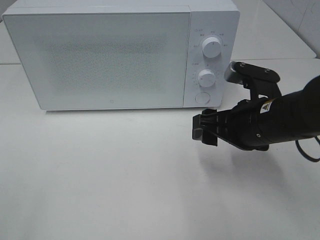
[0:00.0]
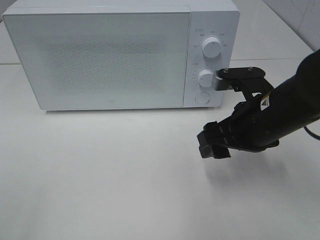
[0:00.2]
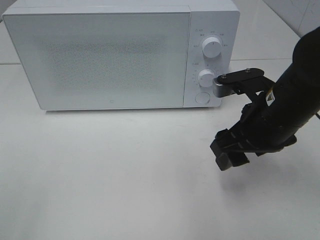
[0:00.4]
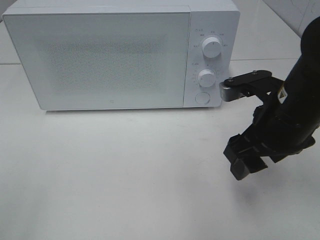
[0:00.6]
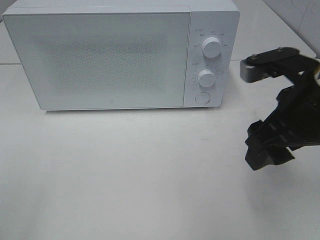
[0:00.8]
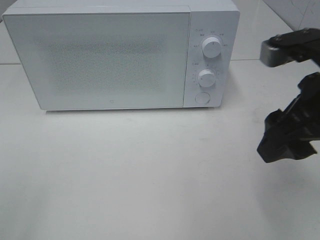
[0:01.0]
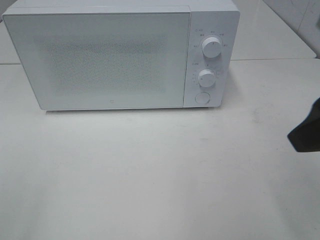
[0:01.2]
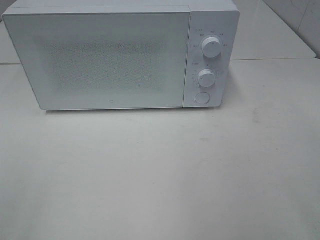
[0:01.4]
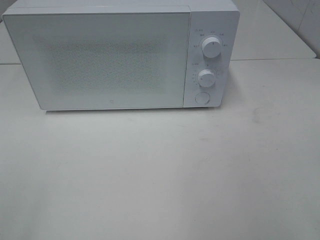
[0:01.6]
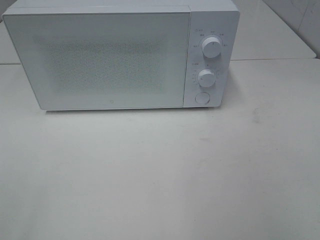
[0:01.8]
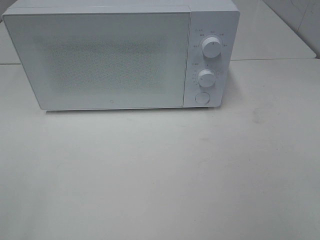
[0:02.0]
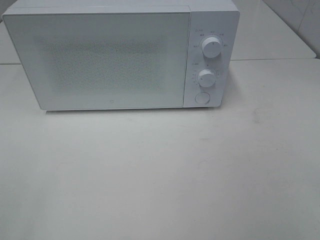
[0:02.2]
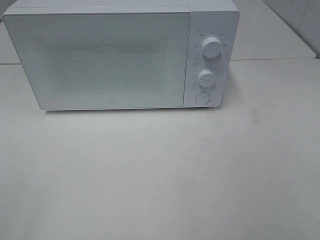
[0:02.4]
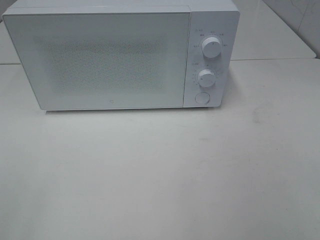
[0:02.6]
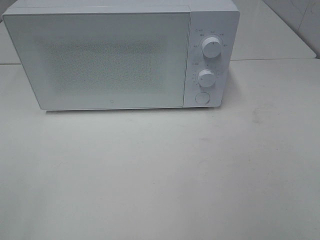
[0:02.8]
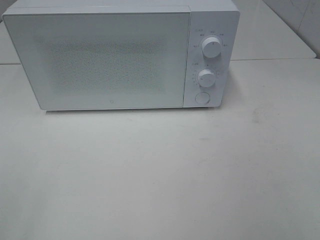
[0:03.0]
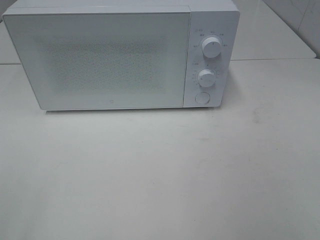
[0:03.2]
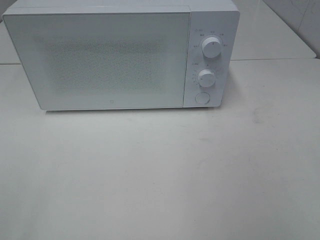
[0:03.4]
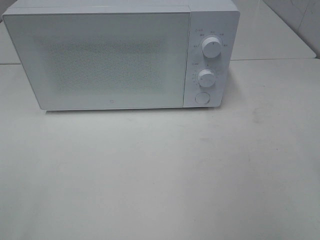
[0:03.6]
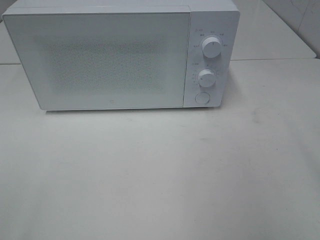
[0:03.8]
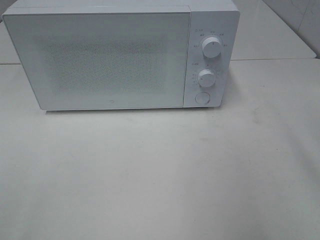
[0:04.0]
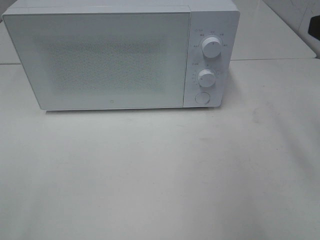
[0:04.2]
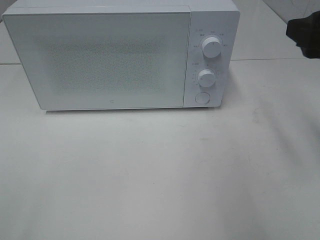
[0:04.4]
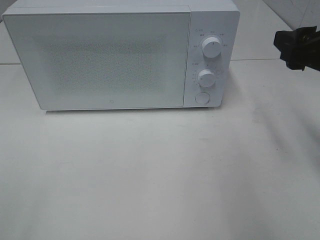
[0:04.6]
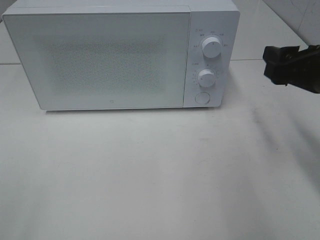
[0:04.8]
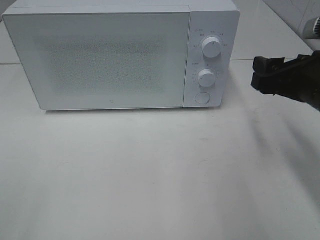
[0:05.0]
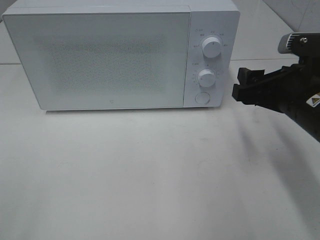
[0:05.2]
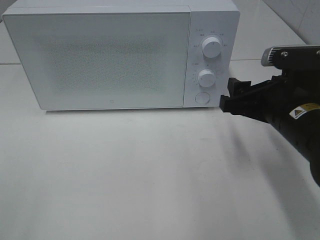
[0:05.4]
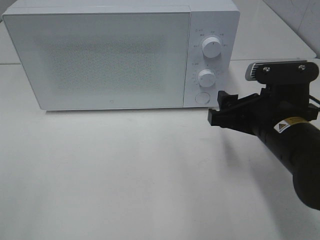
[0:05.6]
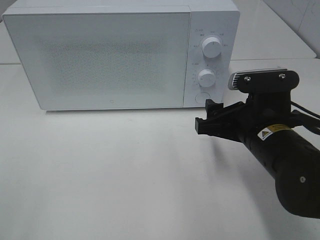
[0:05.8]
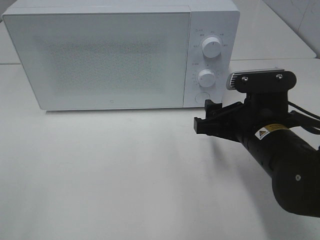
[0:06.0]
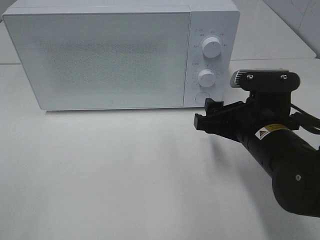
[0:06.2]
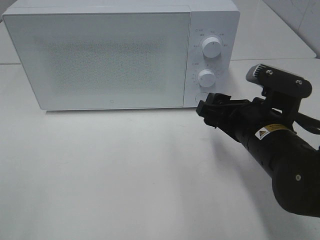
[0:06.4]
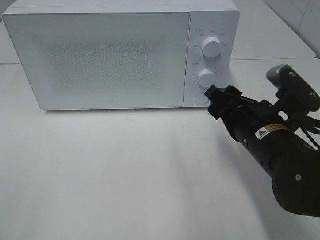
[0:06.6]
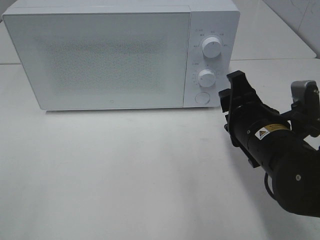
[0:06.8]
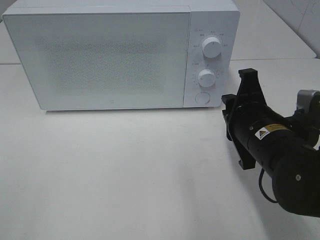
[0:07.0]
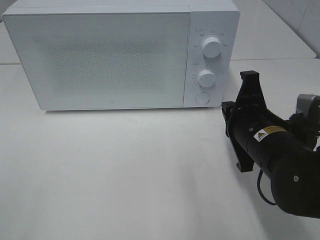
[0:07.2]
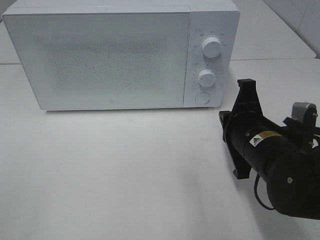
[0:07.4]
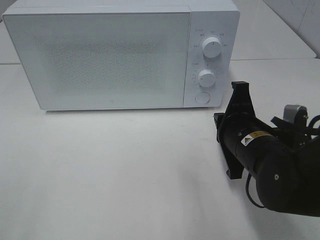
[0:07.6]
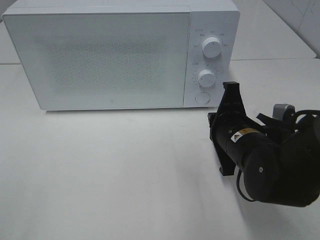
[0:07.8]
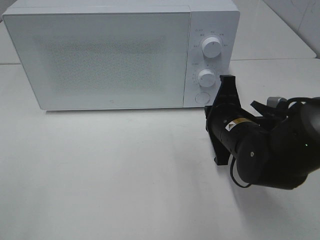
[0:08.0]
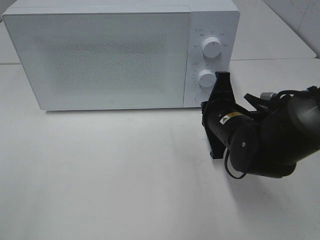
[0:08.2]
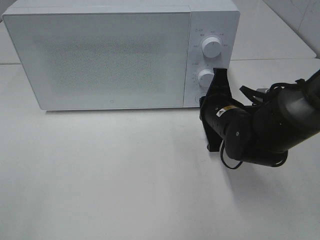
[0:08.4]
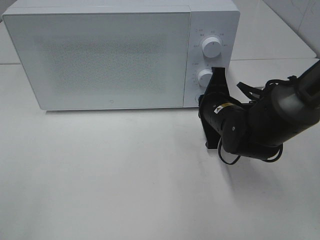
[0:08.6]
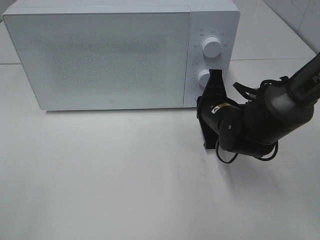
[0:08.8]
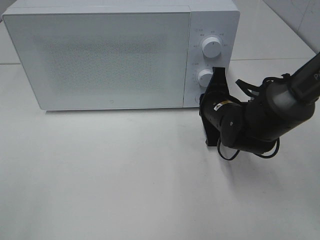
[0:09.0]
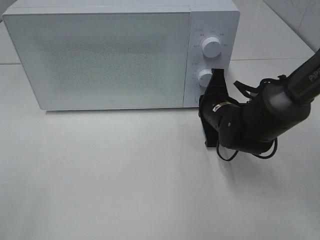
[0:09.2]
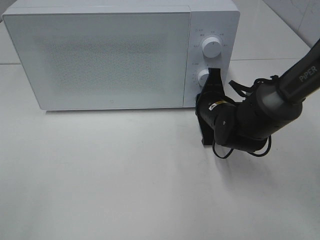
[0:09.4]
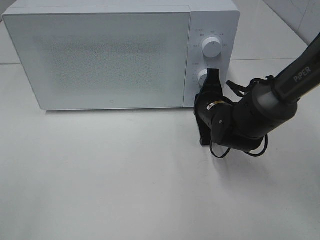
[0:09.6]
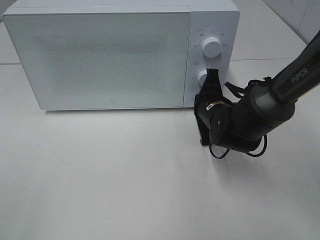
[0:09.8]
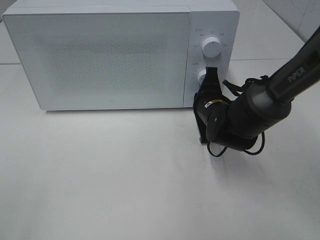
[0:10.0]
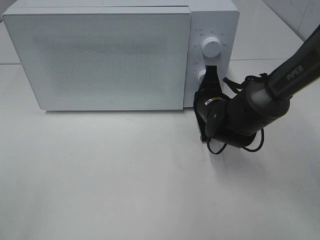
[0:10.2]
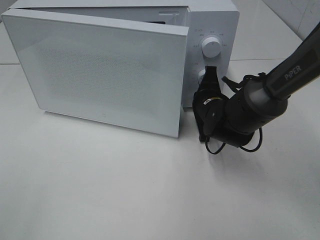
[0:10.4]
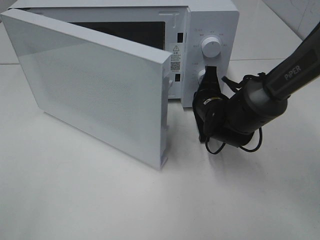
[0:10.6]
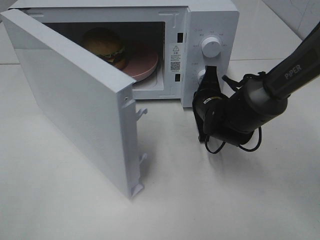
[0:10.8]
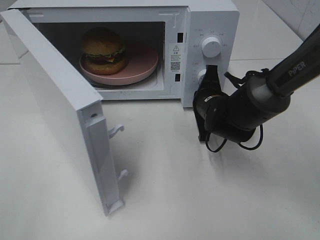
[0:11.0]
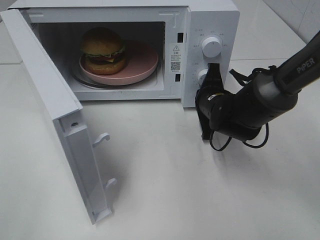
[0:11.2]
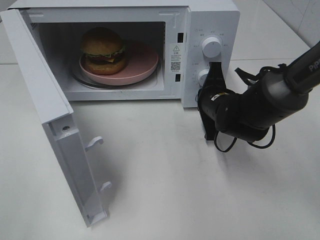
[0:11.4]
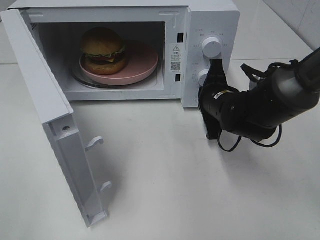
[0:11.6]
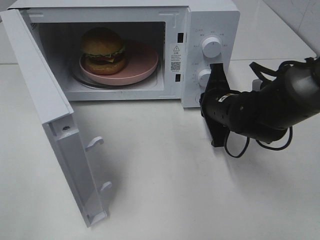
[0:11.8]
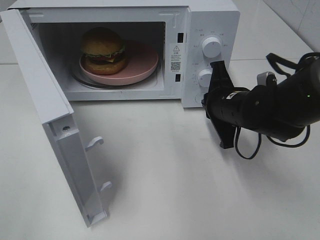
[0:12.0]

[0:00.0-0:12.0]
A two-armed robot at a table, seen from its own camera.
Task of the whole recording: Heat the burger.
Step, 0:00.0 to 0:11.8: Right hand: press the switch.
0:00.0 to 0:01.6: The right gripper is displaced backward, upward and to the right by roughly 25 cm.
0:03.0 to 0:04.4: The right gripper moves forward, about 20 cm.
0:04.4 to 0:06.0: The right gripper moves downward and to the left, some 15 cm.
0:06.0 to 0:07.6: The right gripper closes.
0:07.6 to 0:09.0: The right gripper moves forward, approximately 10 cm.
0:09.0 to 0:10.4: There are only small adjustments of the grippers.
0:10.4 to 0:12.0: The right gripper travels backward by approximately 5 cm.

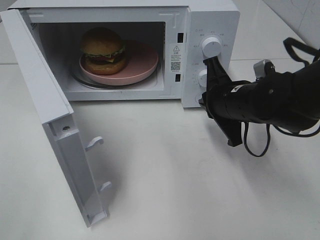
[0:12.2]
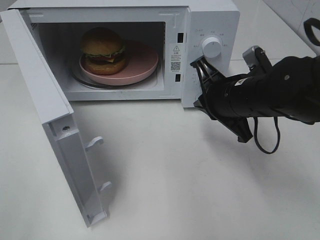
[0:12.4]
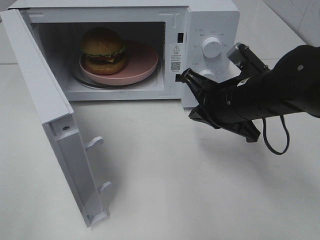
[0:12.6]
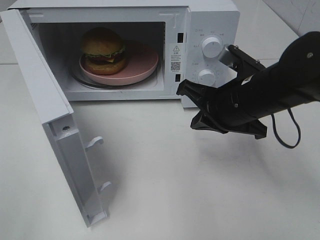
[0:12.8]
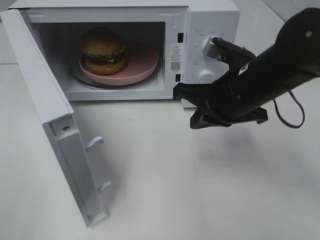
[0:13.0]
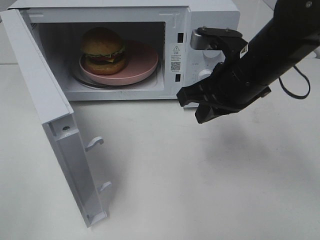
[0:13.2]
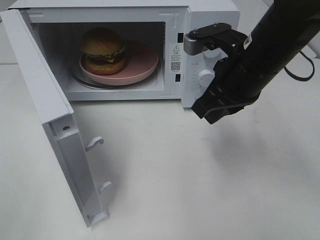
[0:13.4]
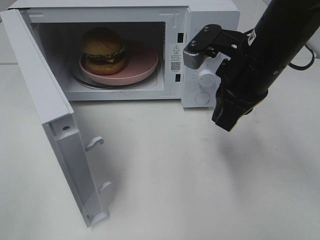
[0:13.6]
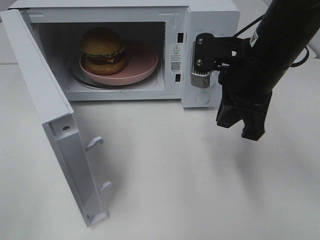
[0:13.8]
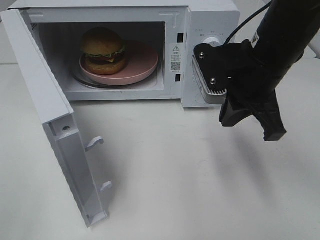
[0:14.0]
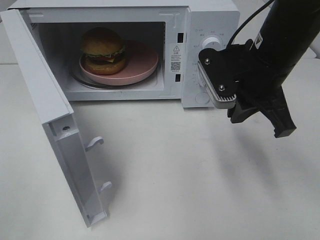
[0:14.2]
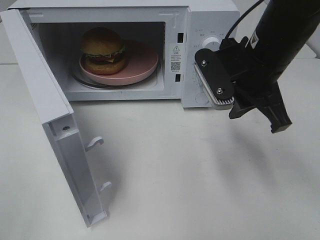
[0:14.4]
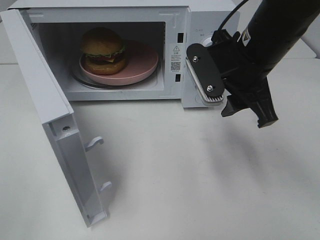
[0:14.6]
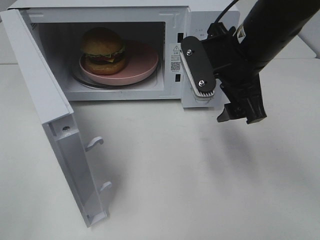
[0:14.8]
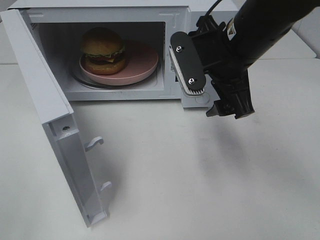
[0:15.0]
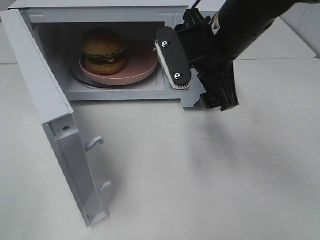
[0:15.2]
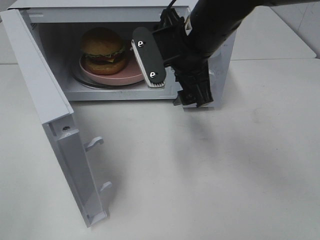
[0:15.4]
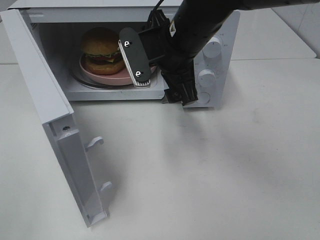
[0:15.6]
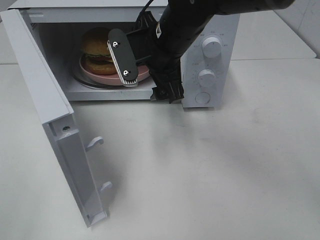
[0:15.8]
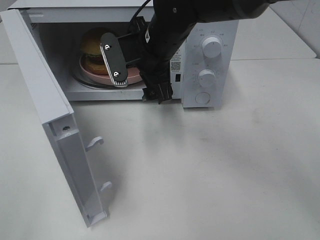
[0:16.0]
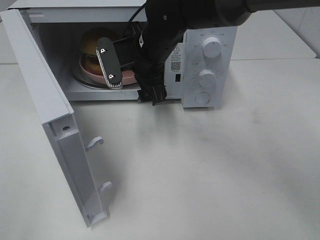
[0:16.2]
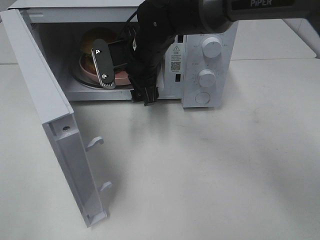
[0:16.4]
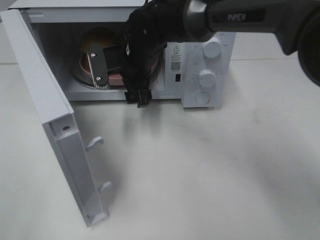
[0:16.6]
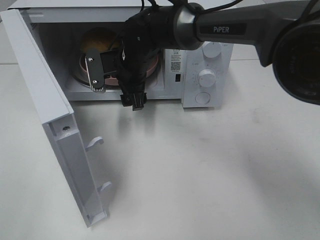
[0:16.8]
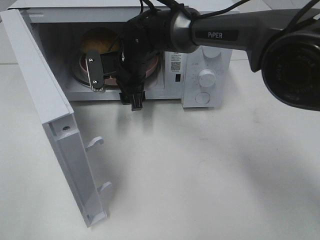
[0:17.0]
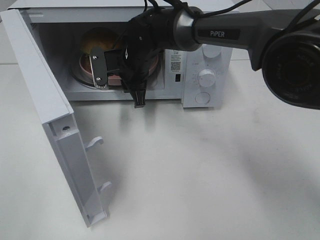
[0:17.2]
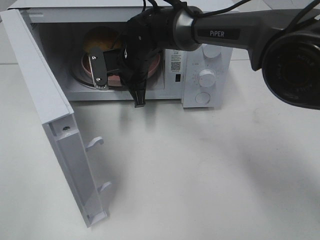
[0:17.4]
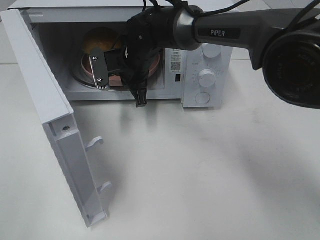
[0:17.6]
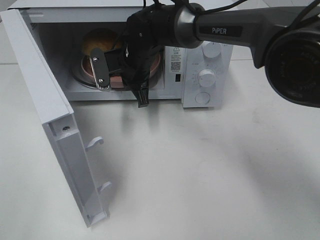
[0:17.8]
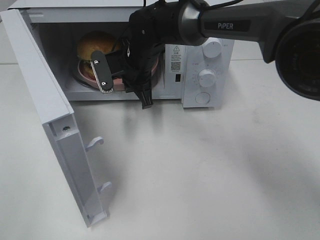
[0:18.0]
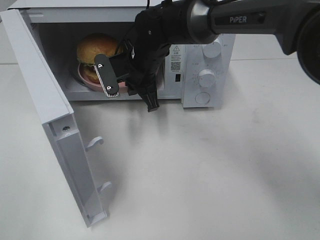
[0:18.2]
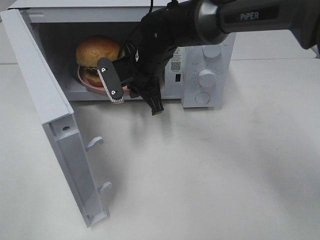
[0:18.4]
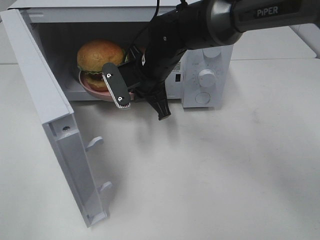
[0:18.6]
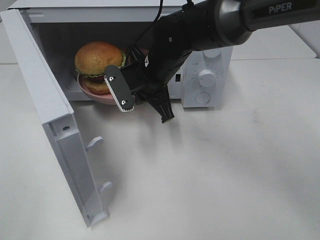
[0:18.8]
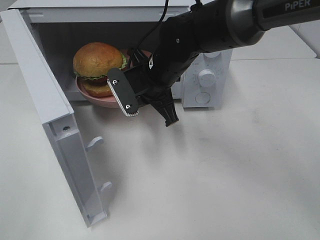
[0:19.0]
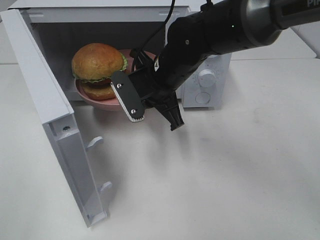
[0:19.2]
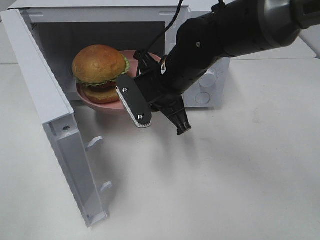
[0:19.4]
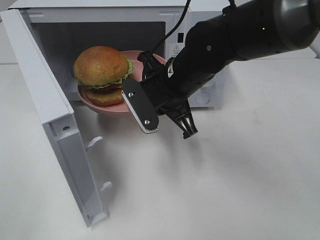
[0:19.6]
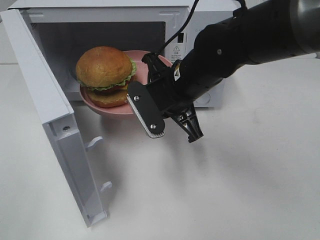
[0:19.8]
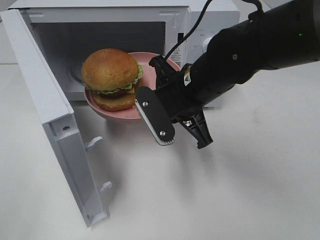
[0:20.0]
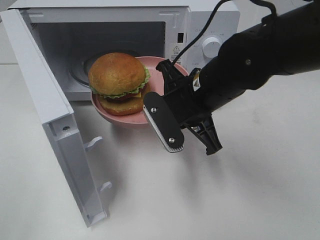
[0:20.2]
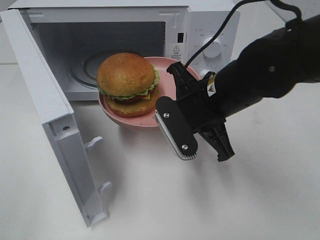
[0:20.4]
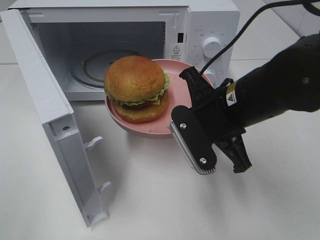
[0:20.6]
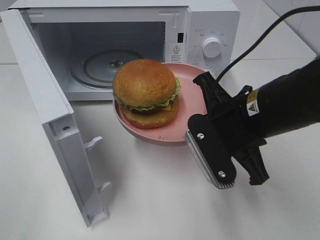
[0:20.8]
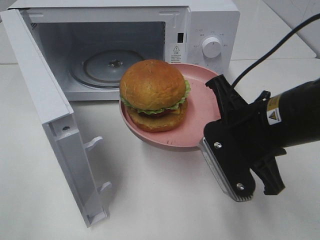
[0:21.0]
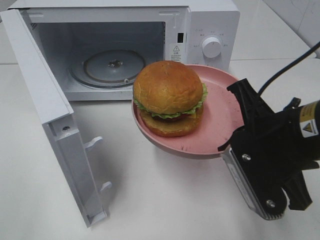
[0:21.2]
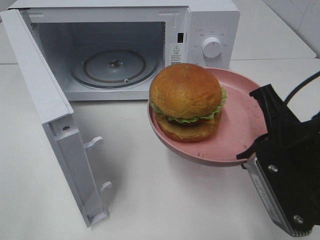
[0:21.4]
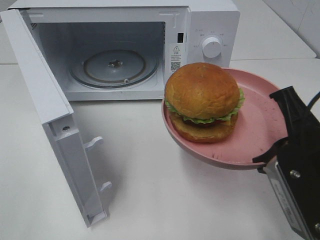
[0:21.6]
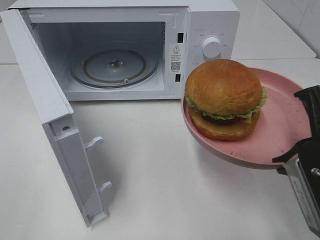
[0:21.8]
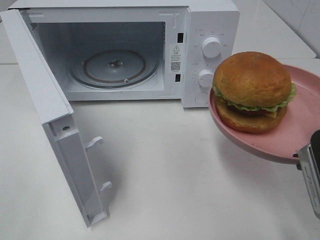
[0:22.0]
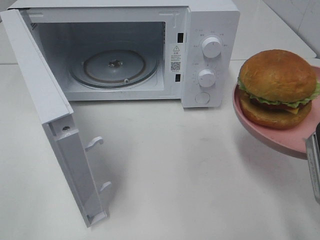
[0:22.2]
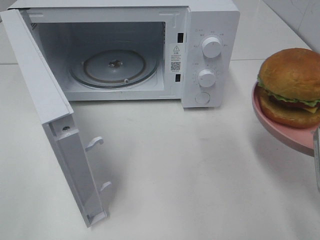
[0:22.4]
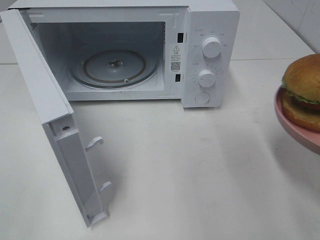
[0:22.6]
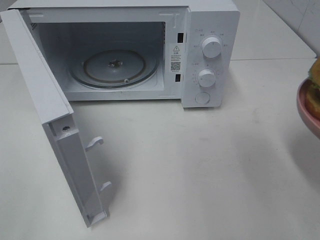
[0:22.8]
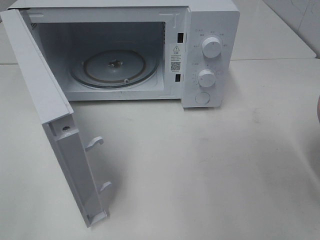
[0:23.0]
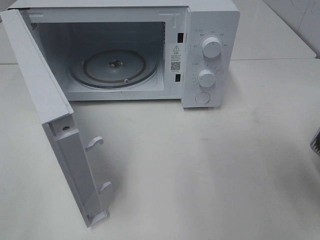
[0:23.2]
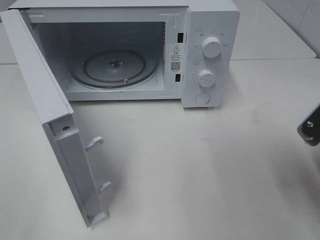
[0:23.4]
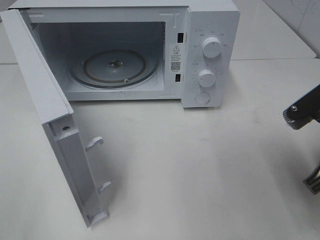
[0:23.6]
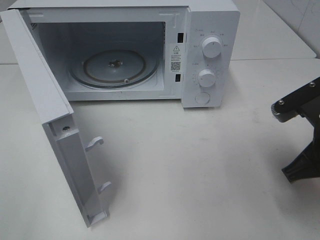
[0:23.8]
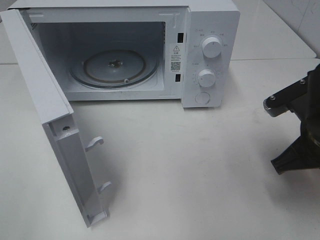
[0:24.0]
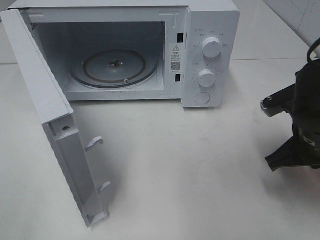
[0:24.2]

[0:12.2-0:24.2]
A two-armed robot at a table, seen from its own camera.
Task of the whole recording: Heat the burger.
Step, 0:12.2 to 0:17.6: Right hand: grab the plate with the hamburger.
0:12.2 to 0:13.8: The right gripper heads upward, covering roughly 10 cm.
0:13.8 to 0:15.2: The right gripper goes about 5 cm to the left, and opens its fingers.
0:15.2 to 0:16.6: The right gripper moves to the left, forward and downward, approximately 20 cm.
0:16.6 to 0:18.2: The right gripper closes up.
0:18.2 to 0:19.8: The right gripper heads backward and to the right, covering some 15 cm.
0:19.8 to 0:21.2: The right gripper is displaced backward and to the right by approximately 15 cm.
0:21.2 to 0:22.6: The right gripper travels to the right by roughly 10 cm.
0:22.6 to 0:24.2: The right gripper is displaced forward and downward by some 10 cm.
